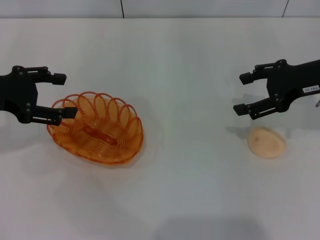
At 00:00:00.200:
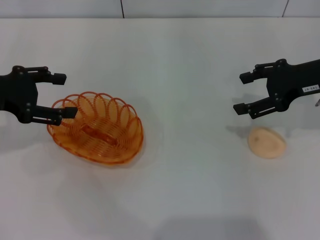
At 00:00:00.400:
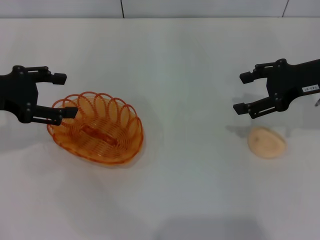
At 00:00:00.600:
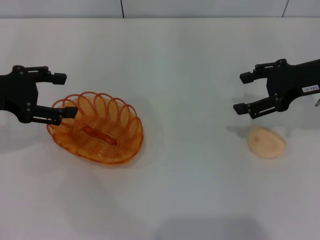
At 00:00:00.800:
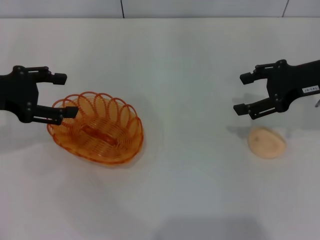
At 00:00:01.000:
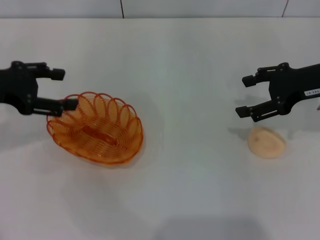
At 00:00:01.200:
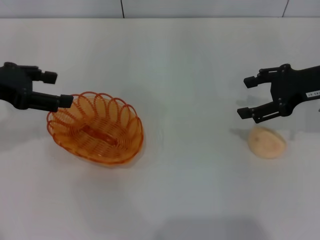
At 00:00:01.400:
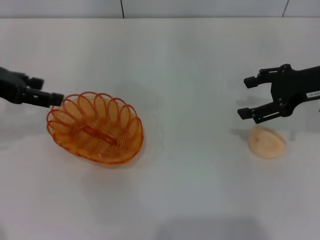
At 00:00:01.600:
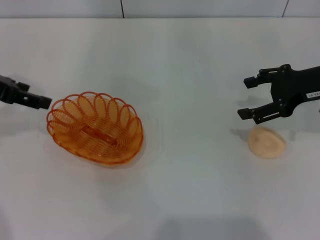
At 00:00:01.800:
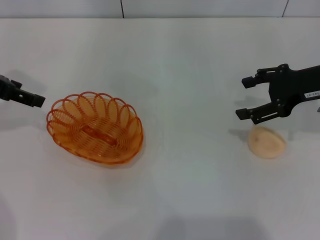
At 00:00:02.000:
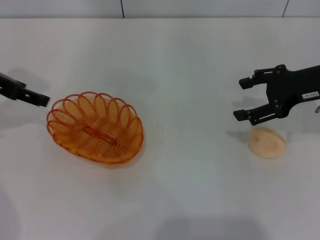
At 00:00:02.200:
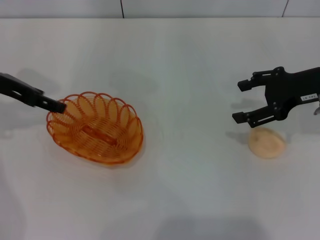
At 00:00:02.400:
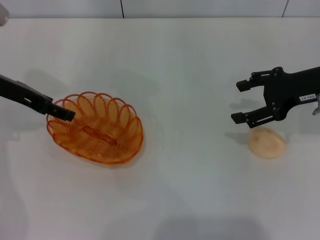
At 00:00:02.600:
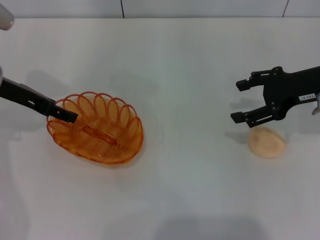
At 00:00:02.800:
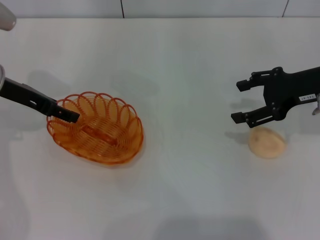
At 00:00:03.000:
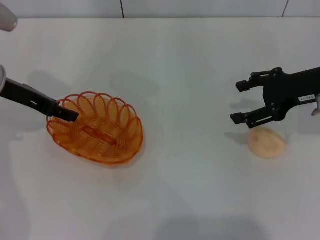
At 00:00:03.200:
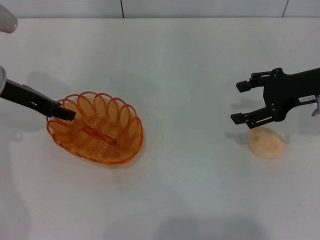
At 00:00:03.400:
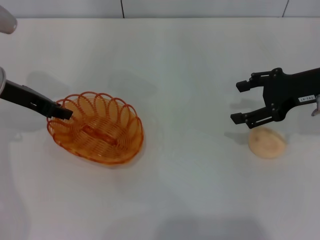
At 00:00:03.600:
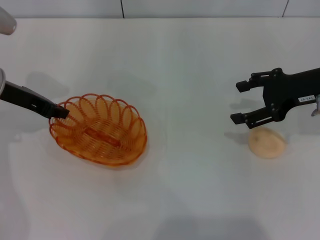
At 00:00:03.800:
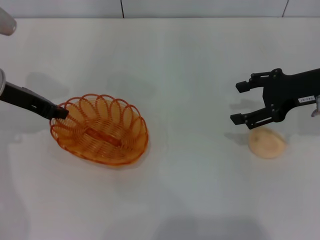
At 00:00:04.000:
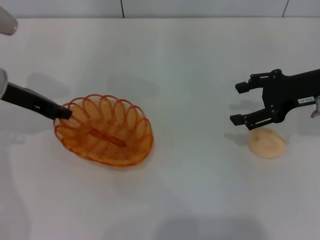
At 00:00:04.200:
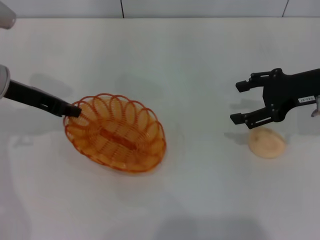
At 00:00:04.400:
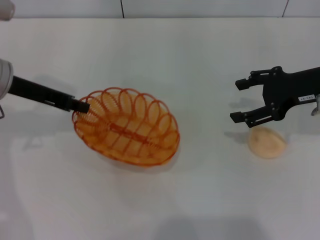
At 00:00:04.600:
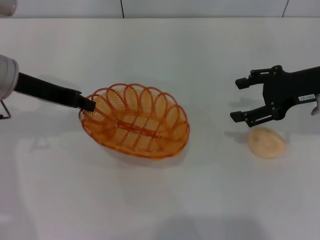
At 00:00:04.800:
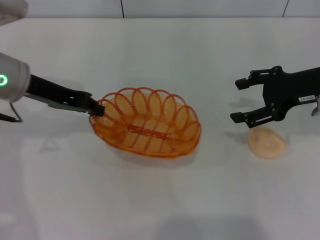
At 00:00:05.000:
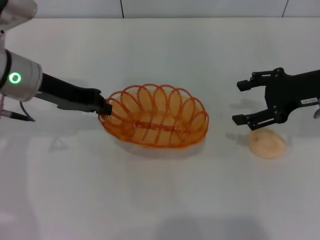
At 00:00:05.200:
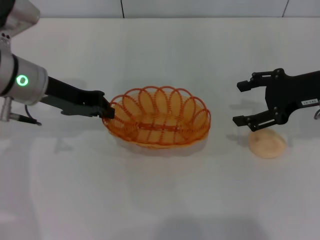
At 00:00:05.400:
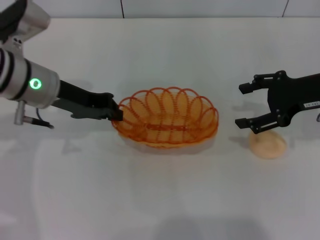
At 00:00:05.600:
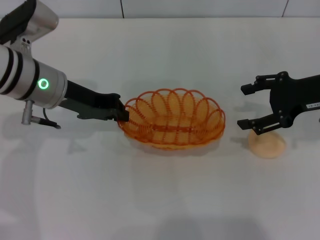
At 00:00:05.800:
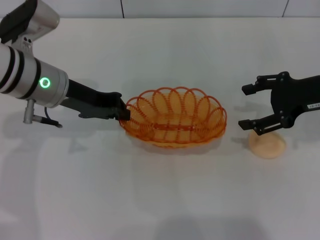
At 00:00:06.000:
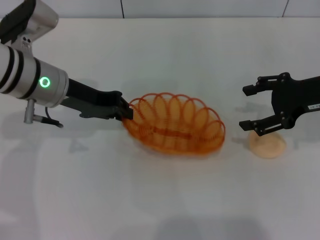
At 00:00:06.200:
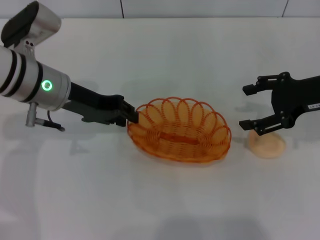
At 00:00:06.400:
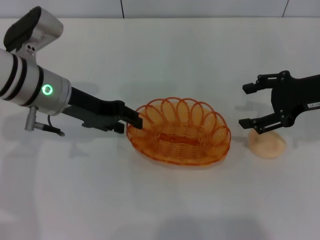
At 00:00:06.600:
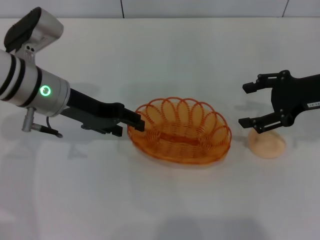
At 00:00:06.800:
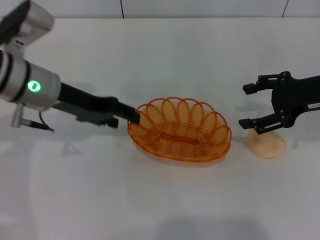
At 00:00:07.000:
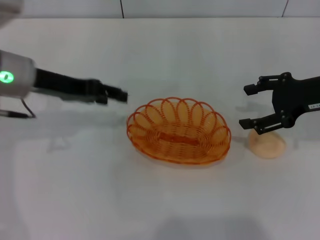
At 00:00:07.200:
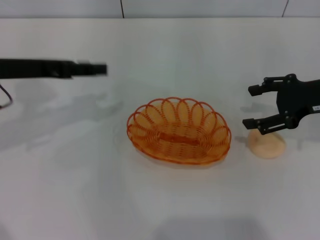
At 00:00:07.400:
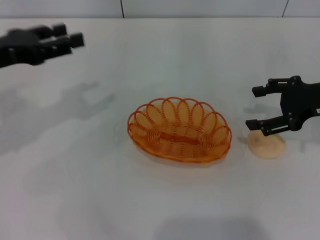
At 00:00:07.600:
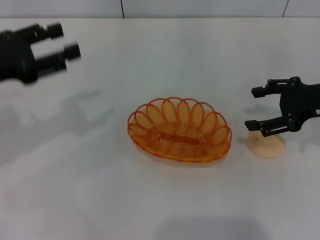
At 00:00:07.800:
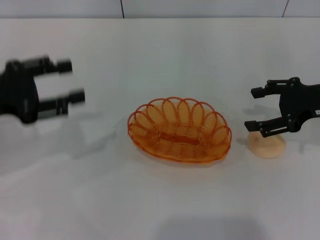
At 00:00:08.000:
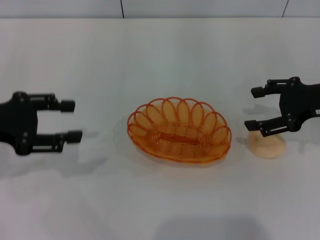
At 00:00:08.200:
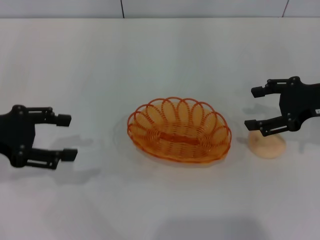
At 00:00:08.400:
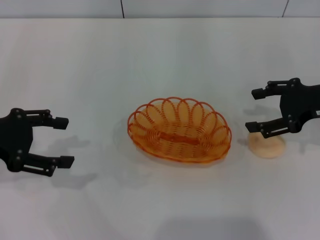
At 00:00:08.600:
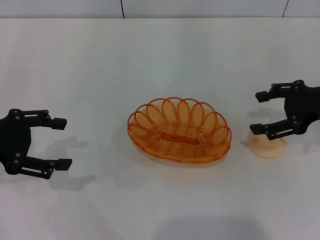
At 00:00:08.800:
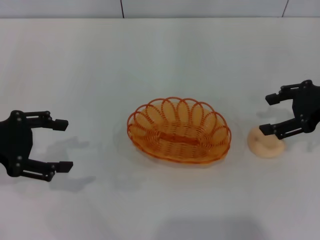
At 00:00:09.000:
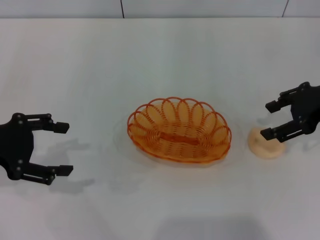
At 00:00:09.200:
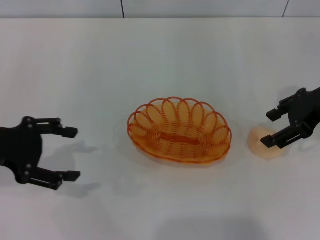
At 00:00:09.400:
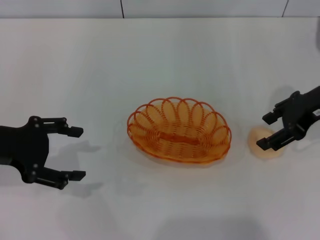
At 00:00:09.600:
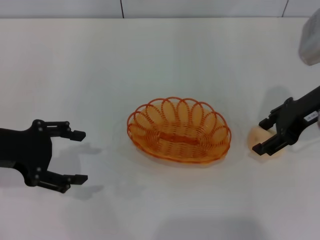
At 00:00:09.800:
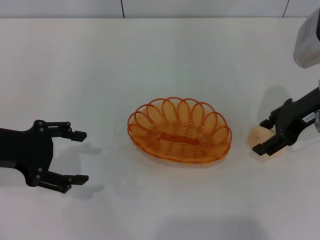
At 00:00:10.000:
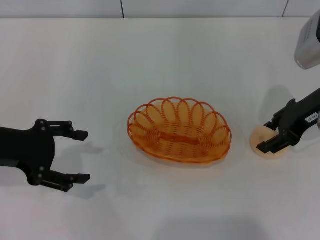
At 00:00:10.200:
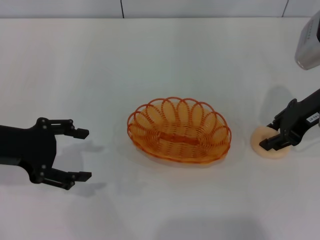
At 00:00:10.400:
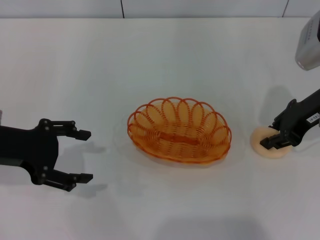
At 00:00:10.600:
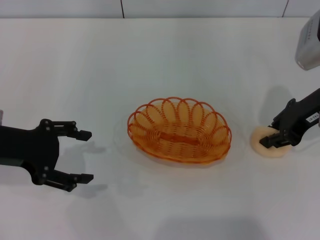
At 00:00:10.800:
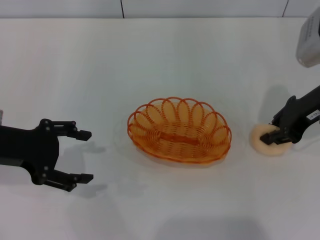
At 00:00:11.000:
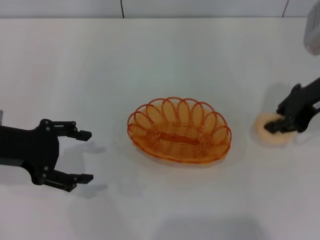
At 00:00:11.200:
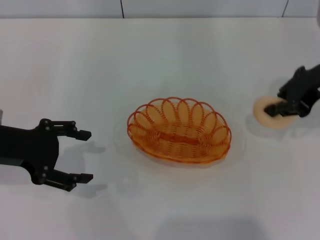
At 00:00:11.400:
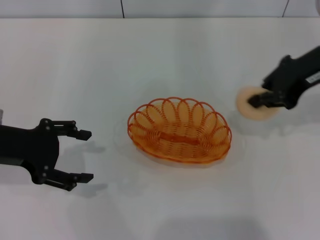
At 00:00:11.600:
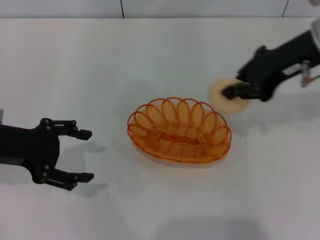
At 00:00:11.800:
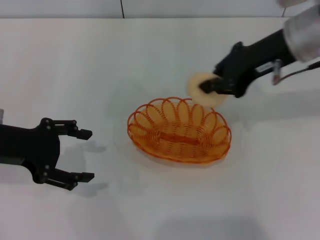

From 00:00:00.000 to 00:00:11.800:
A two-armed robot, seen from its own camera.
Step, from 00:00:00.000 to 00:00:04.600: Pick up the basket with the left gripper.
Step, from 00:00:04.800 to 00:00:07.000: Place the basket in the center of view with the left gripper.
Step, from 00:00:07.400 to 00:00:11.200: Pick up the egg yolk pastry with the right gripper.
From 00:00:01.400 to 00:00:03.000: The left gripper moves downward, approximately 5 cm.
From 00:00:03.000 to 00:00:04.400: The left gripper closes up.
From 00:00:04.400 to 00:00:06.000: The left gripper moves to the right, roughly 5 cm.
From 00:00:06.000 to 00:00:07.400: The left gripper is displaced to the left by approximately 10 cm, and opens.
From 00:00:07.400 to 00:00:08.800: The left gripper ends up some 5 cm from where it was.
From 00:00:08.800 to 00:00:10.400: The right gripper is displaced to the left by approximately 5 cm, and closes its fingers.
From 00:00:10.400 to 00:00:11.800: The right gripper shifts about 10 cm to the left and upward, and closes its fingers.

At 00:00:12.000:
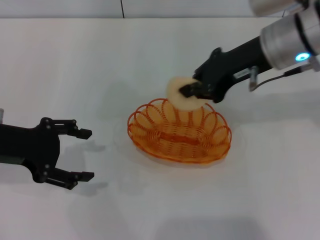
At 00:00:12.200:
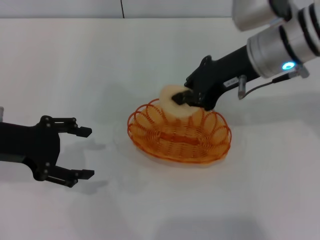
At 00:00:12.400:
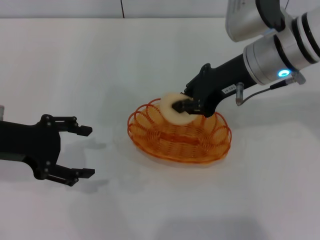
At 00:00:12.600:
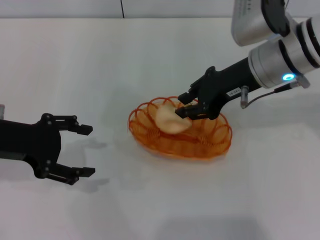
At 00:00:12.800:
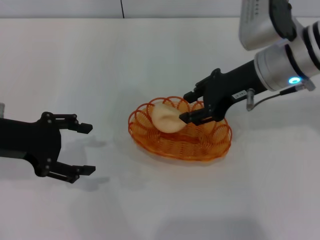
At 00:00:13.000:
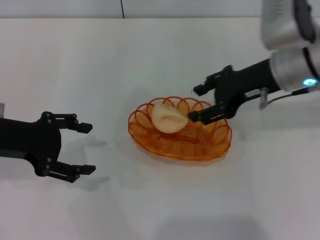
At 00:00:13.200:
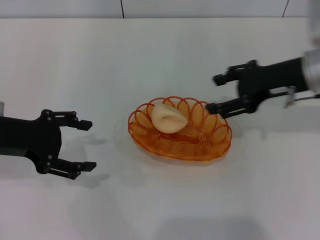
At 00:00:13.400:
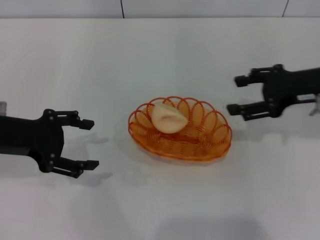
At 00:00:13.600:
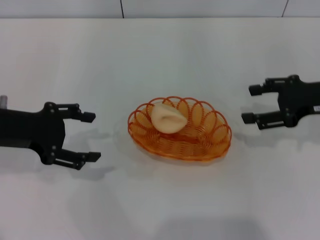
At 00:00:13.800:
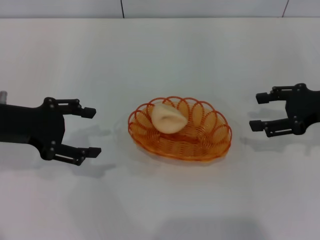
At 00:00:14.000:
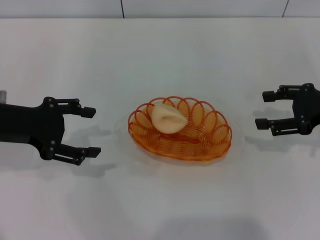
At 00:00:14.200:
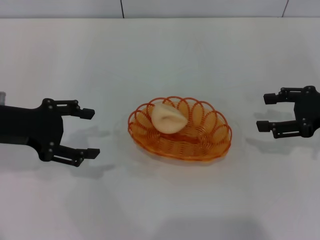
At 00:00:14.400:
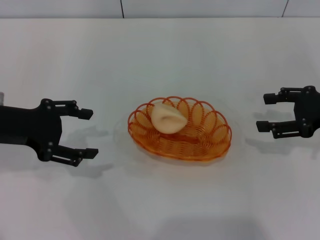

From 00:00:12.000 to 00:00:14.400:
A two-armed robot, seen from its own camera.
Step, from 00:00:12.000 to 00:00:13.400: Place the egg yolk pastry into the basket with the right gripper.
From 00:00:12.000 to 00:00:13.200: The right gripper travels to the right by roughly 5 cm, and opens.
From 00:00:13.200 to 00:00:14.400: The right gripper heads to the right, covering some 10 cm.
